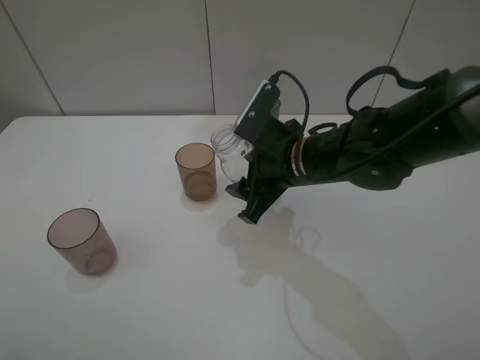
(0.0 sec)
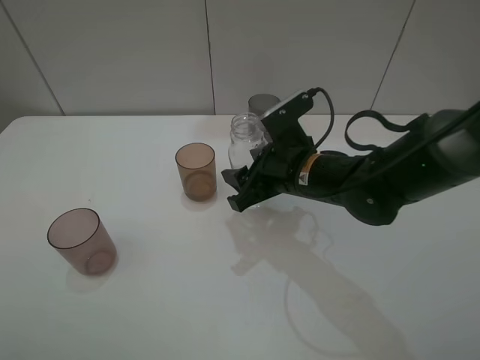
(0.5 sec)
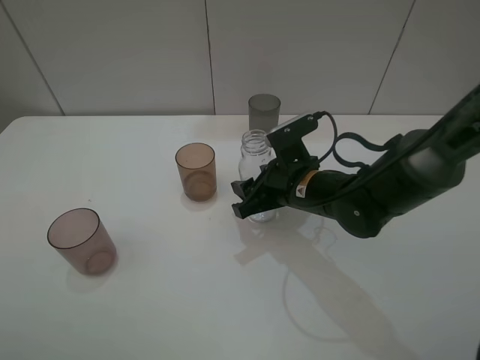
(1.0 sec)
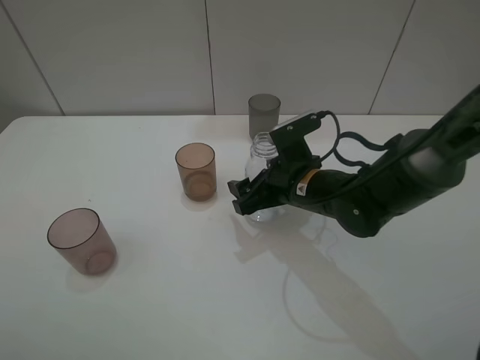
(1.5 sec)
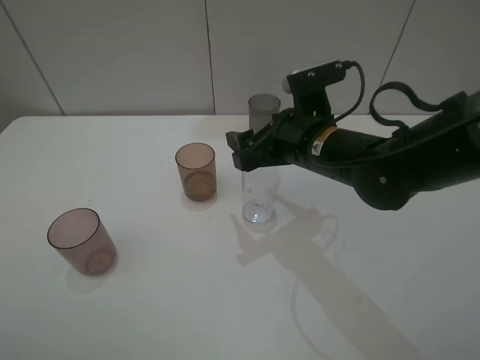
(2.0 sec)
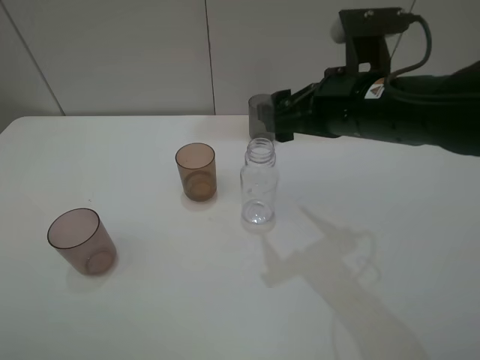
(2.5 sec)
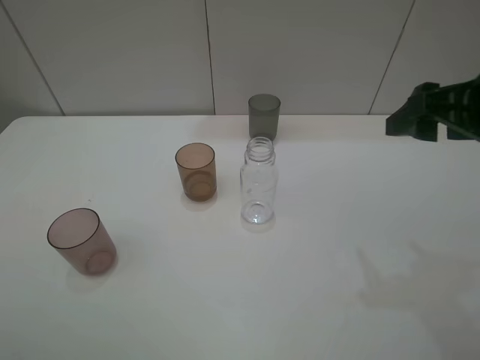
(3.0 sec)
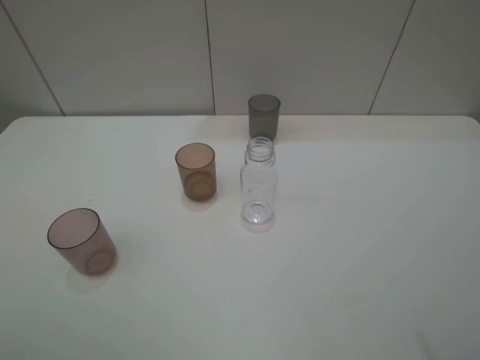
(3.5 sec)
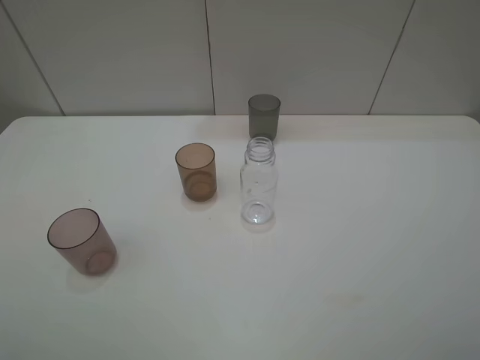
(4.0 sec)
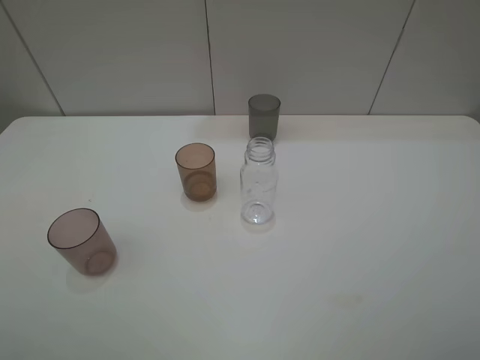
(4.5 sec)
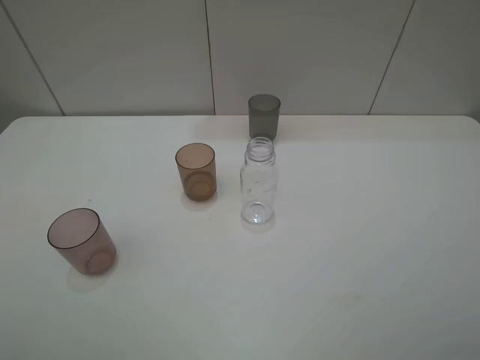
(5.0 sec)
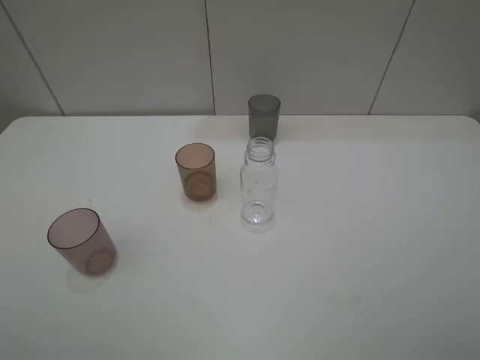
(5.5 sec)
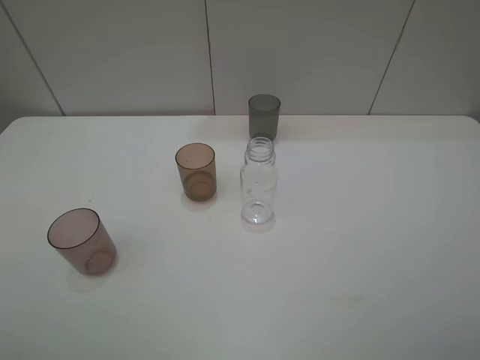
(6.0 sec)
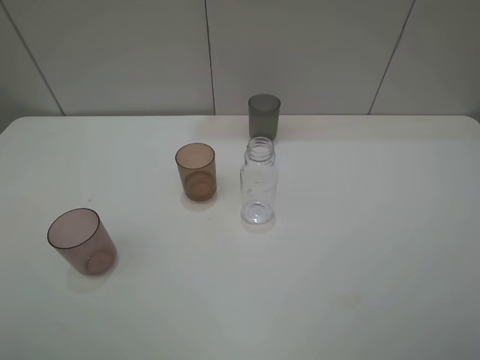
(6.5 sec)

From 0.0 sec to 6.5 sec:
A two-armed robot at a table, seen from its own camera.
Task of the whole recording: pick up the bottle filled with water and pour water into the middle cup of the three cups.
Step, from 0.0 sec to 2.5 sec: Place the transparent bottle with the right gripper.
From 0.0 sec to 2.0 sec: The right gripper goes downward and returns, some 5 cm each way, and opens up.
From 2.0 sec to 4.5 sec: The right gripper goes about 35 cm backward, to the right and upward.

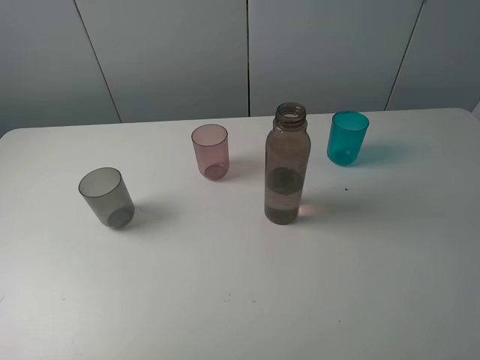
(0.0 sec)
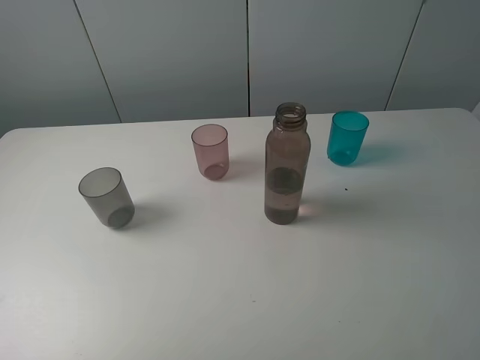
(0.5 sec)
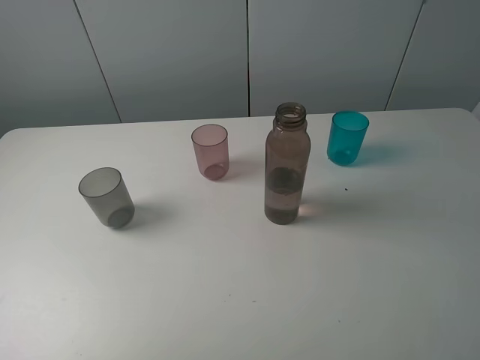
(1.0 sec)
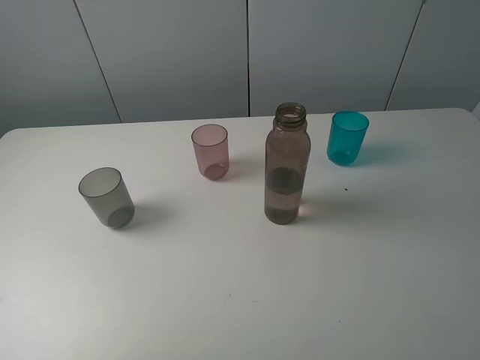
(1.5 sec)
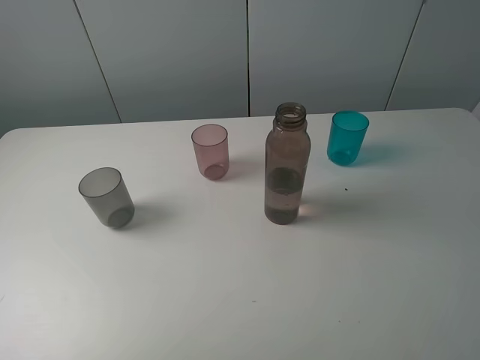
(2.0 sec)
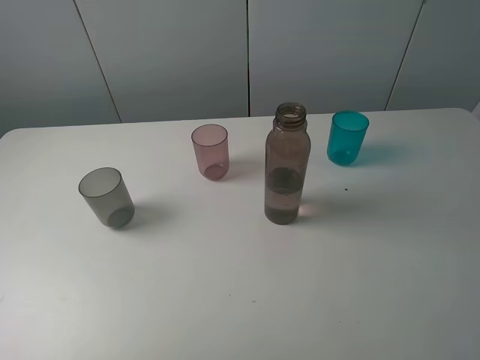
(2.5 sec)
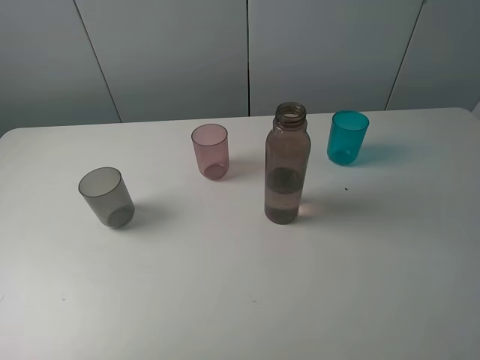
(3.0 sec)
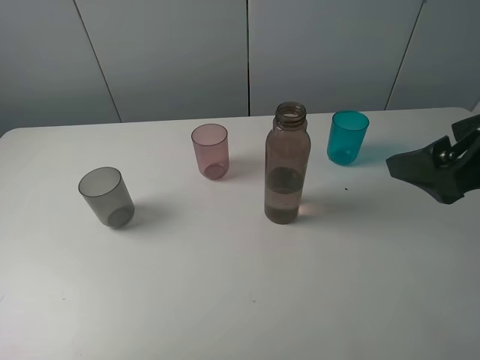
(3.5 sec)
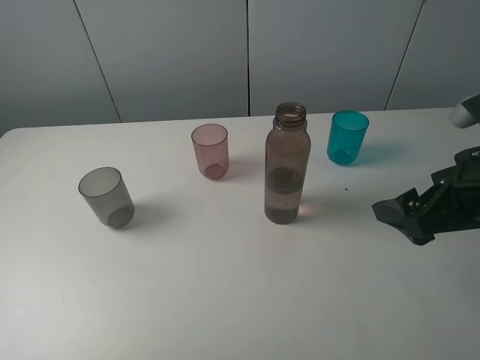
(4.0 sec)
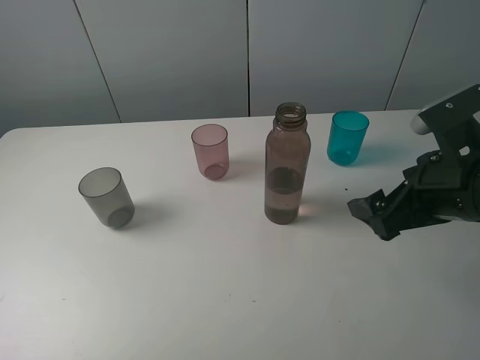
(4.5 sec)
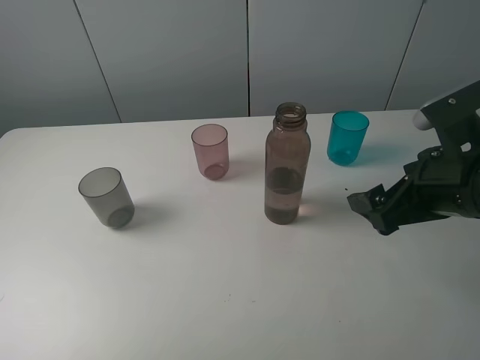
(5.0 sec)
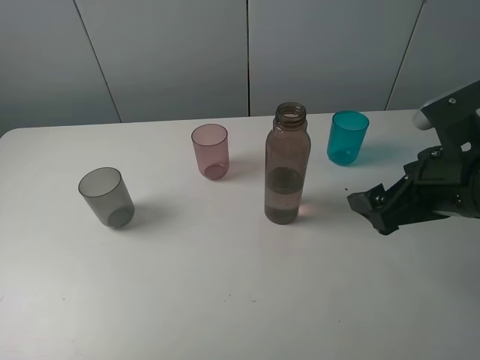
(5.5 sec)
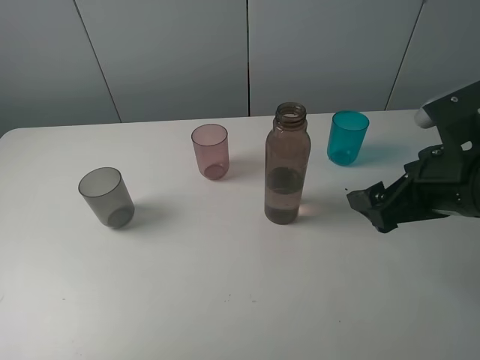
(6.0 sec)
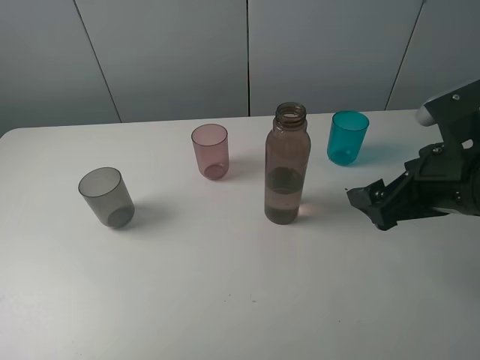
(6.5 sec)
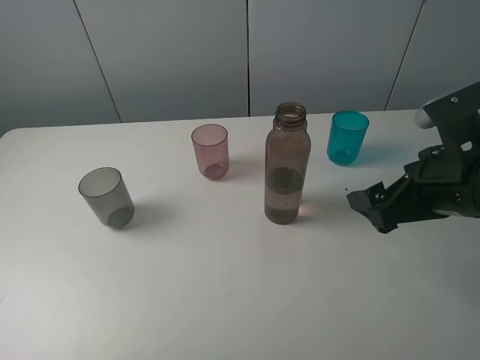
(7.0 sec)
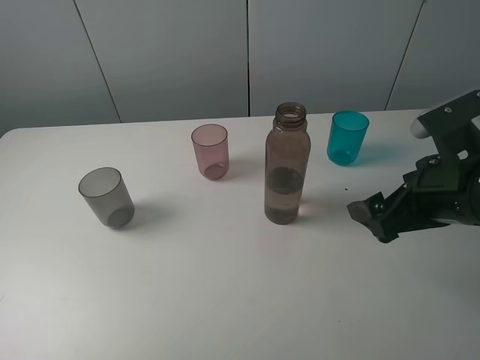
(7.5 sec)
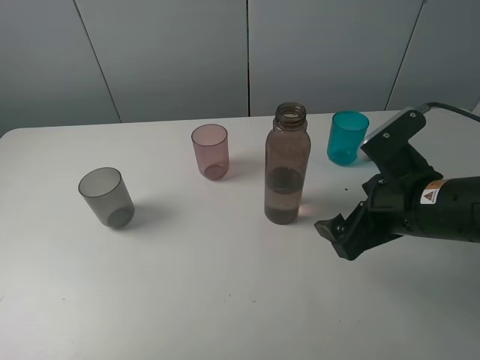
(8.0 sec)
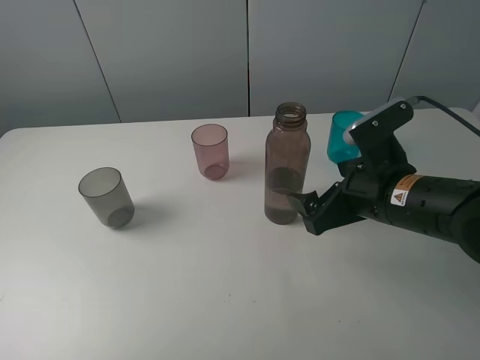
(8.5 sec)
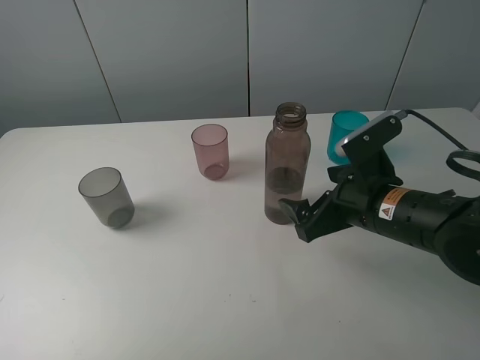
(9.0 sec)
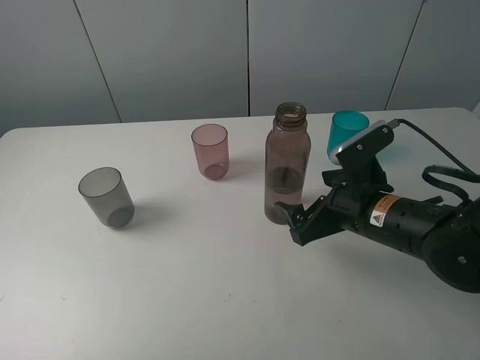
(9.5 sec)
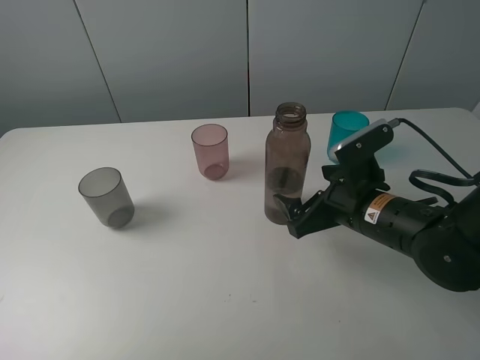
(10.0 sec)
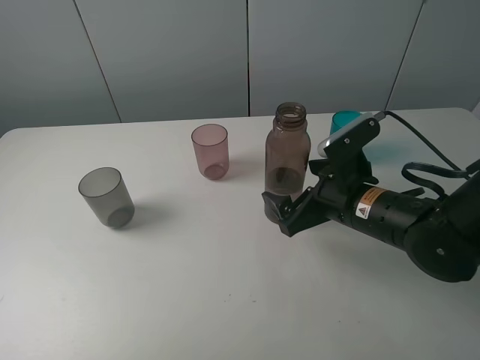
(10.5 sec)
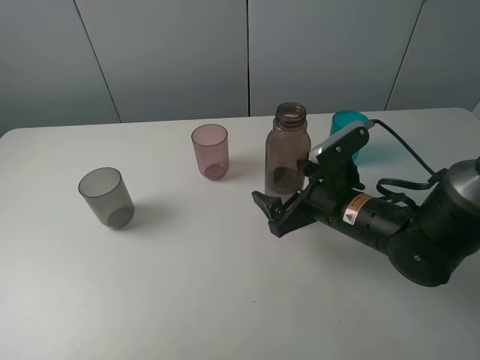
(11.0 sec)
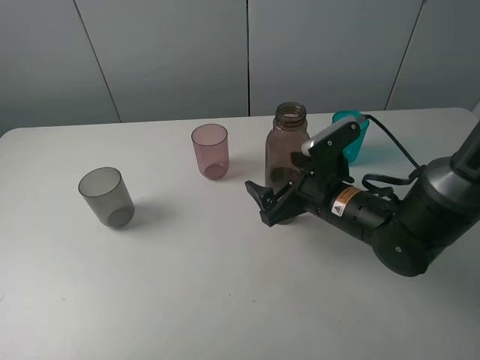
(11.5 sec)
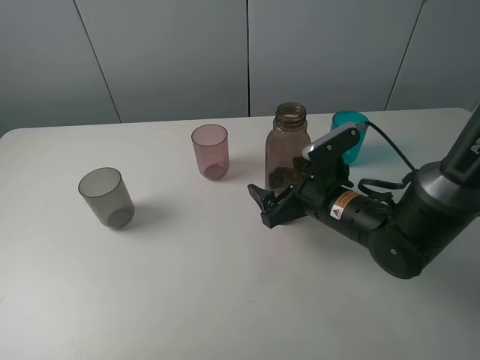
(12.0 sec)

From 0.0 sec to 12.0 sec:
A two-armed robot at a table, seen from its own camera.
Task of the whole recording: pick up the bottle filled with water and pour water into the middle cup of the three cups.
From 0.0 sec to 2.0 sec: Both grippers stay about where they are.
From 2.0 sec to 4.0 sec: The right gripper is displaced forward and downward by approximately 20 cm.
From 4.0 sec to 6.0 sec: The grippers stay close to where they were, moving slightly.
From 6.0 sec to 8.0 sec: The right gripper changes place by about 5 cm.
From 8.0 sec to 10.0 sec: The right gripper goes approximately 5 cm downward.
From 10.0 sec to 12.0 sec: The right gripper shifts by roughly 5 cm.

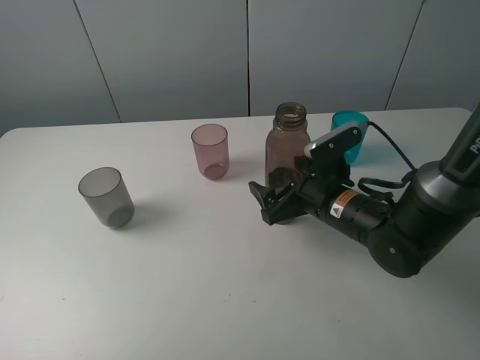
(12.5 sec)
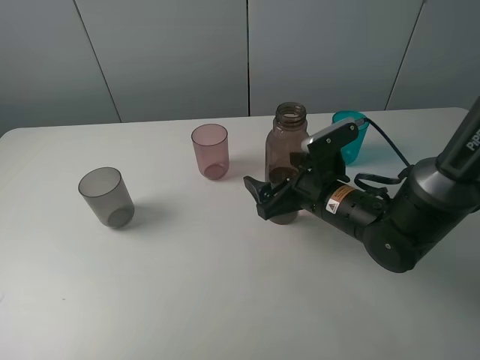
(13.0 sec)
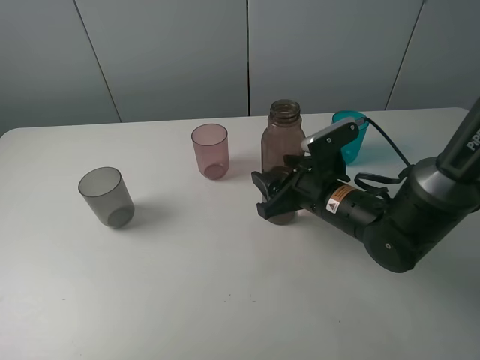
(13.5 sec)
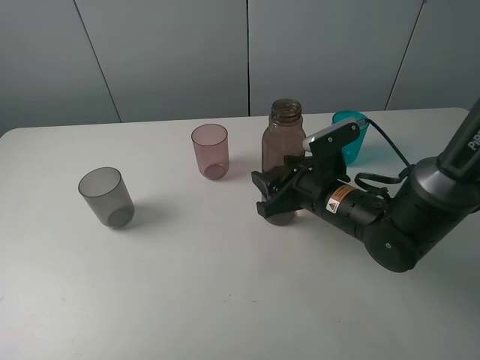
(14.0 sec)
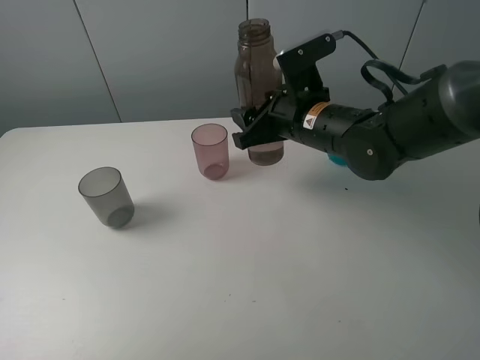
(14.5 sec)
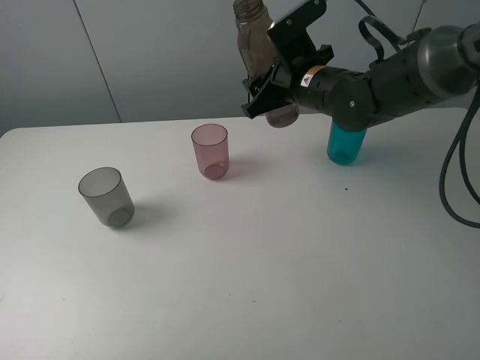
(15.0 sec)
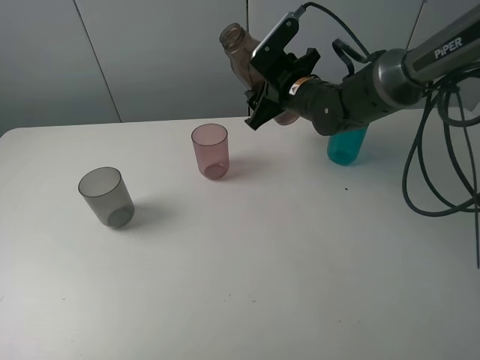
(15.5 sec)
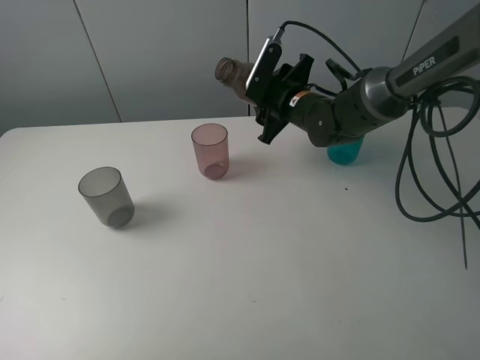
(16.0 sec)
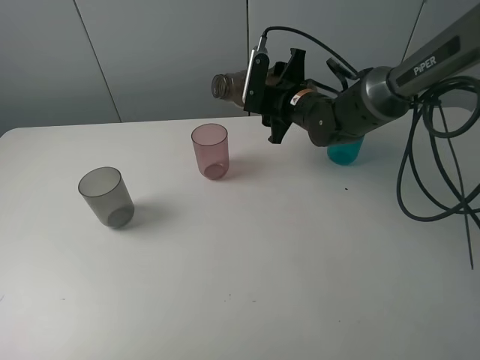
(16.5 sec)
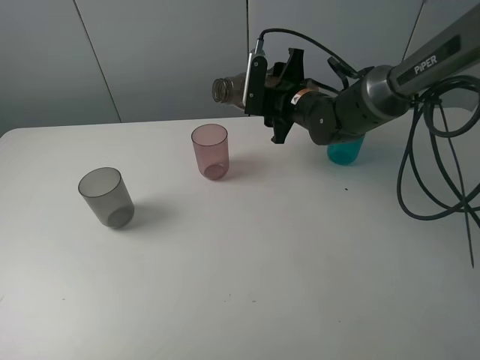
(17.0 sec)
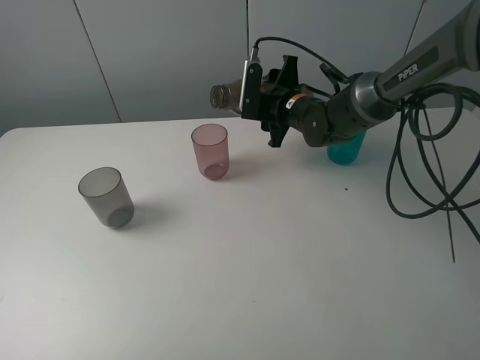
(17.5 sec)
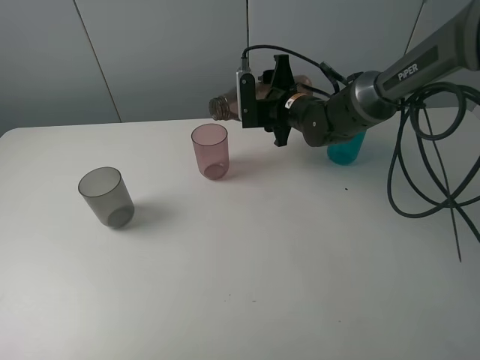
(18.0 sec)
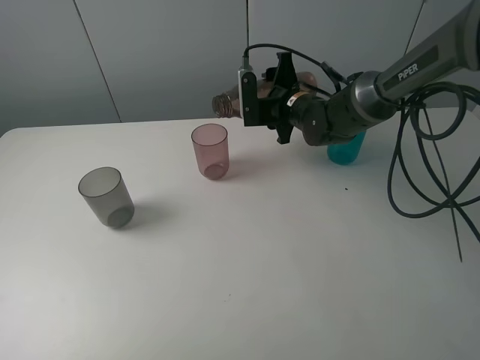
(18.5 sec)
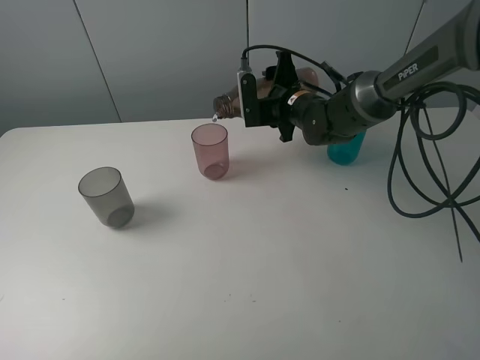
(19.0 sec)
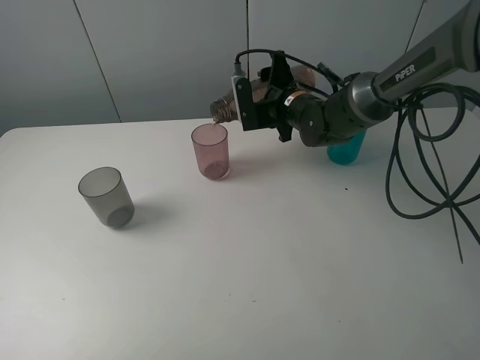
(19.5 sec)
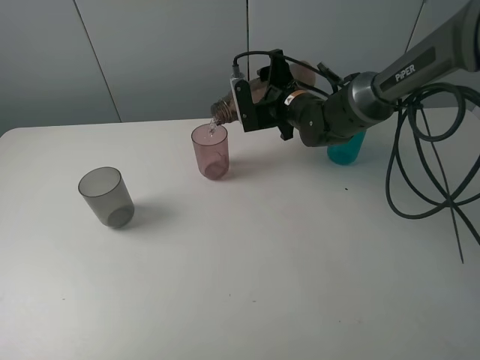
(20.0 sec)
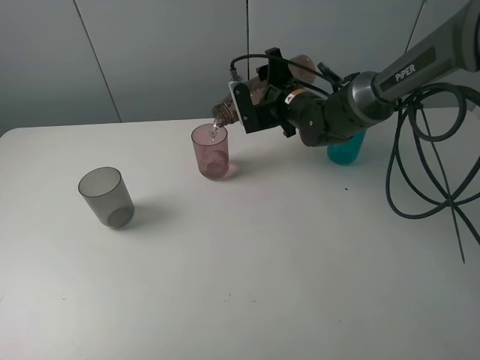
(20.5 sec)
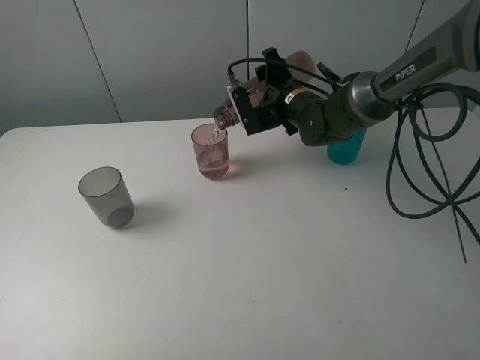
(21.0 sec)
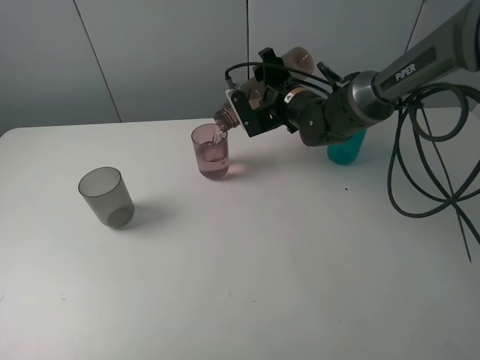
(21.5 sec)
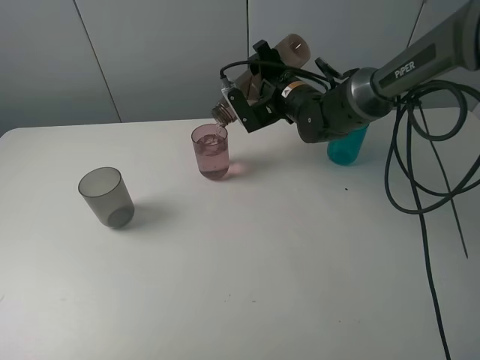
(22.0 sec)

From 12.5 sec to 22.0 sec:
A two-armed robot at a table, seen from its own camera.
Task of the whole recording: pick up the bottle filled with water and pour water into the middle cup of the three cups.
Step, from 14.0 sec to 17.5 sec: Pour water from transparent bottle to red cup with the right gripper.
From 12.5 sec to 14.5 sec: The right gripper heads upward and forward, covering about 10 cm, and closes its fingers.
From 14.5 sec to 16.5 sec: The right gripper shifts some 10 cm forward.
From 16.5 sec to 18.0 sec: The grippers make only small movements.
From 18.0 sec to 20.0 sec: There are only small adjustments of the grippers.
From 20.0 sec to 22.0 sec: The grippers move only a little.
